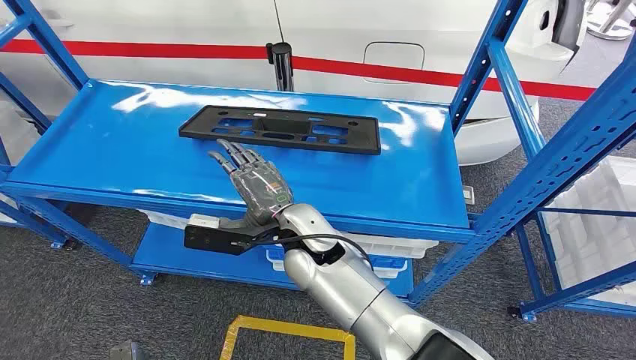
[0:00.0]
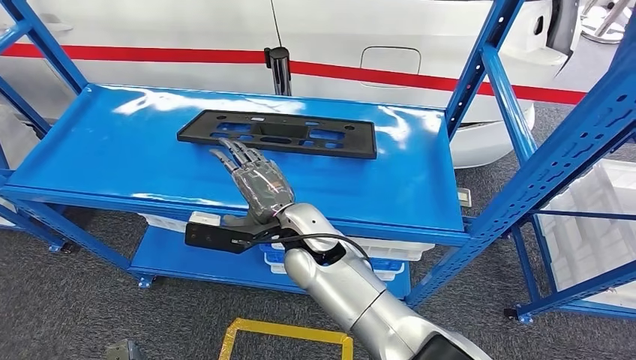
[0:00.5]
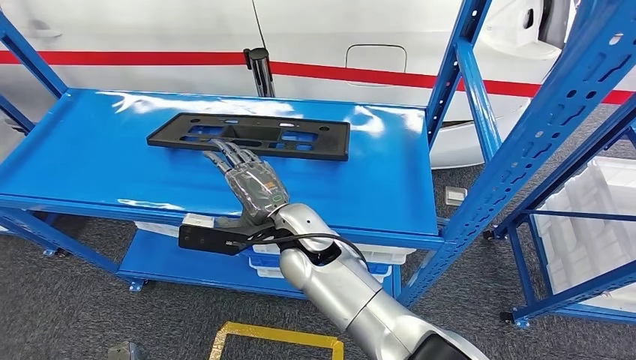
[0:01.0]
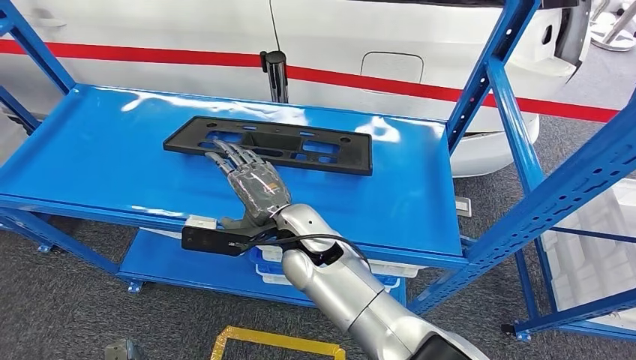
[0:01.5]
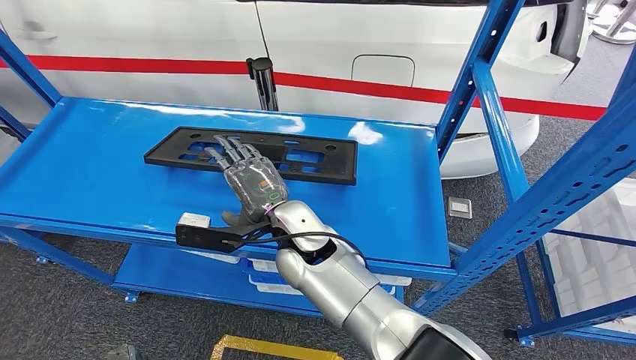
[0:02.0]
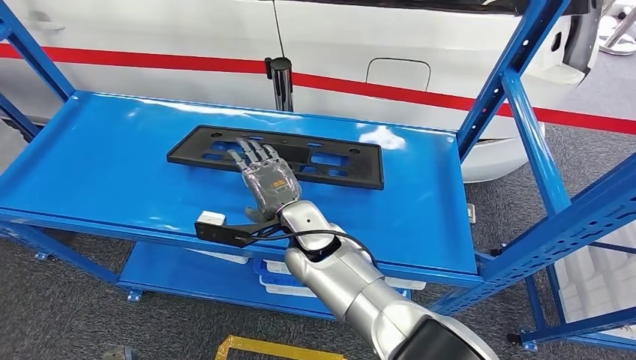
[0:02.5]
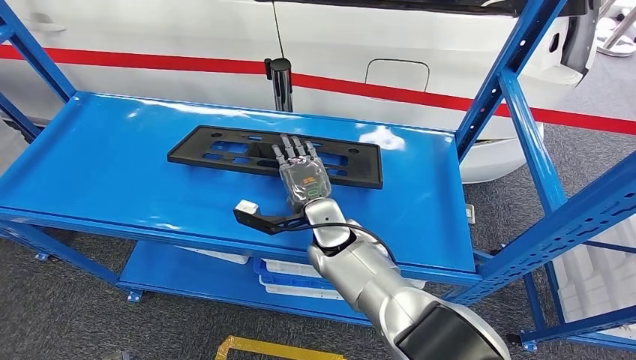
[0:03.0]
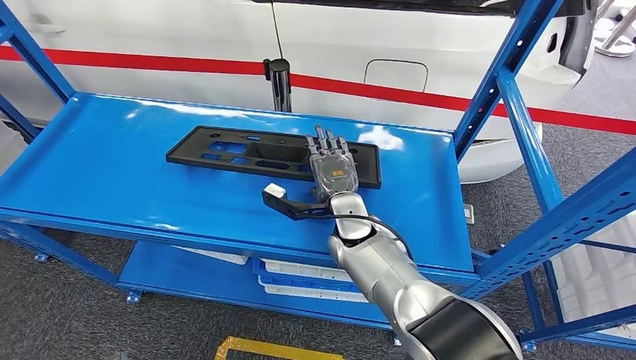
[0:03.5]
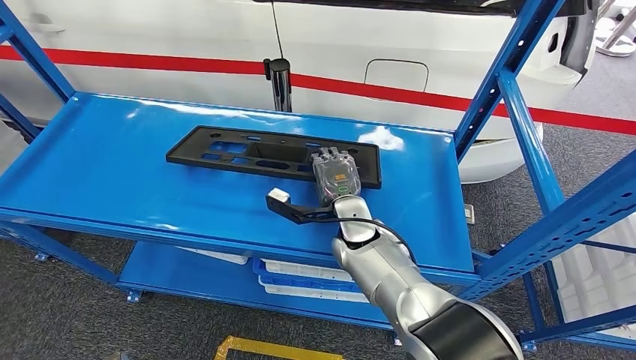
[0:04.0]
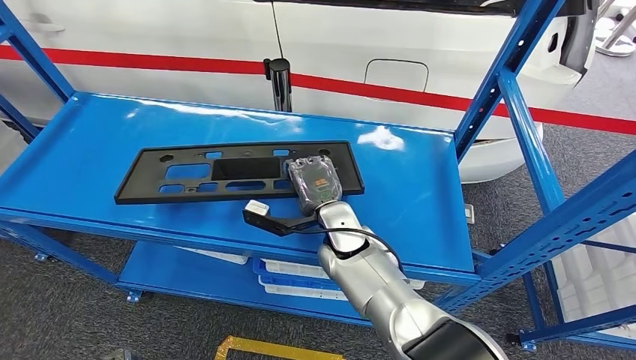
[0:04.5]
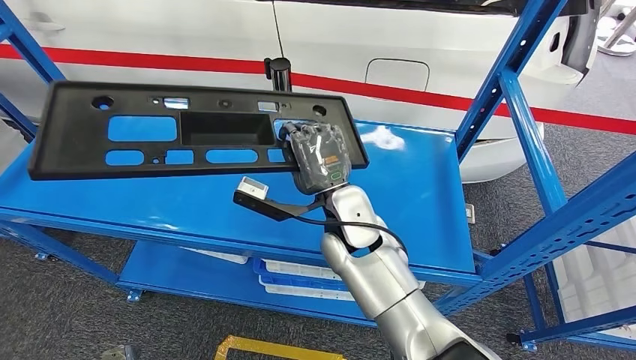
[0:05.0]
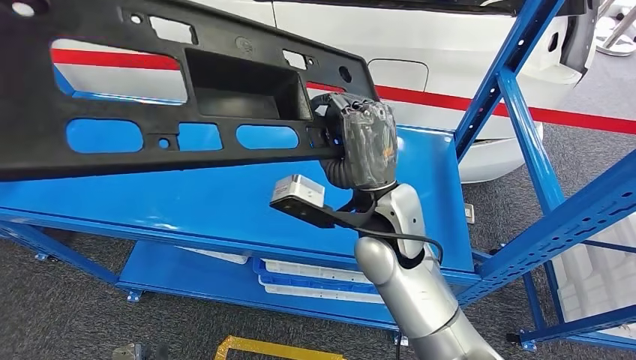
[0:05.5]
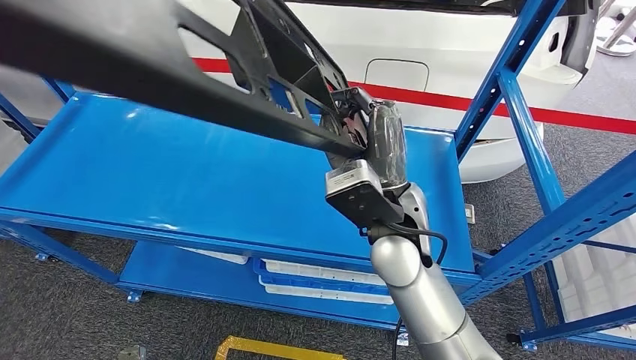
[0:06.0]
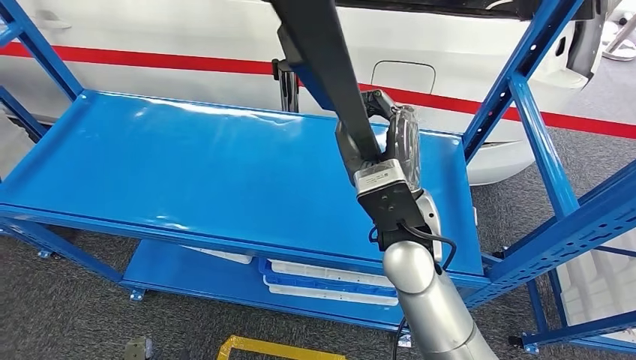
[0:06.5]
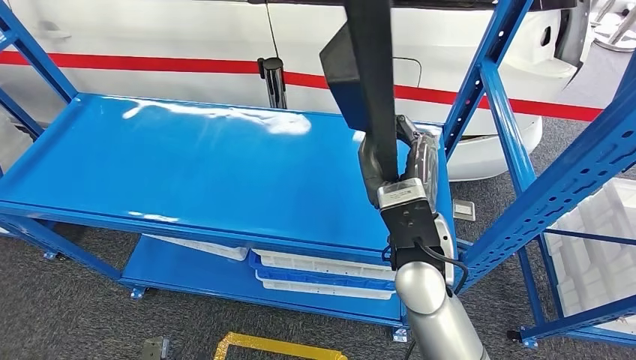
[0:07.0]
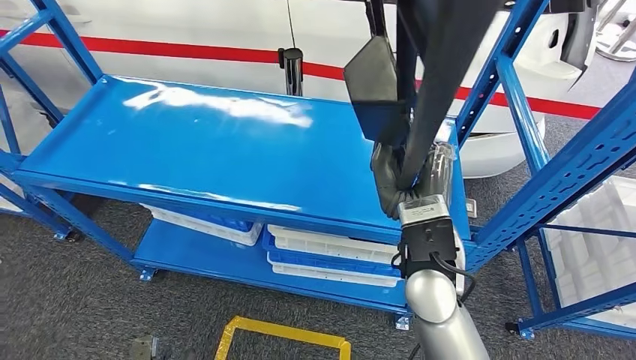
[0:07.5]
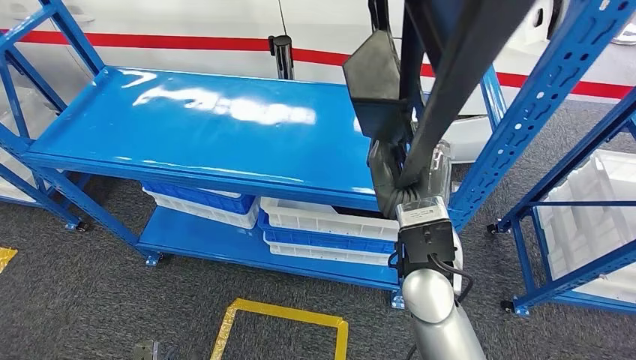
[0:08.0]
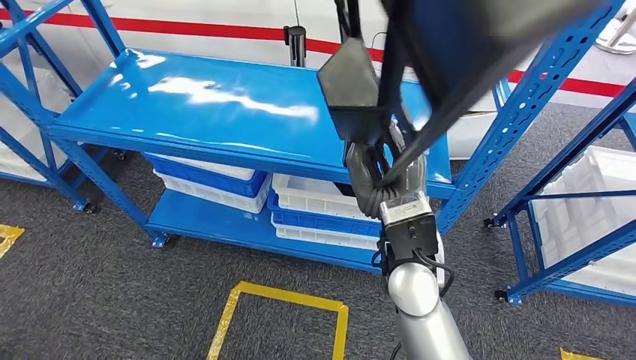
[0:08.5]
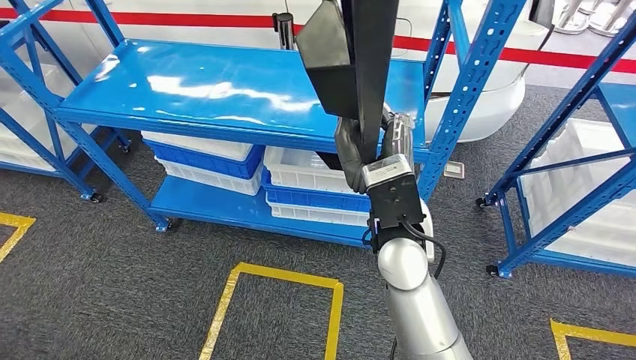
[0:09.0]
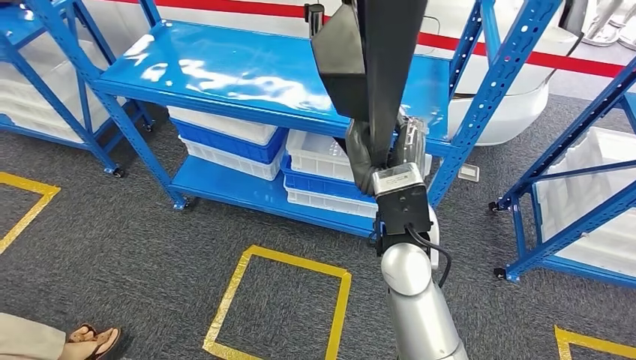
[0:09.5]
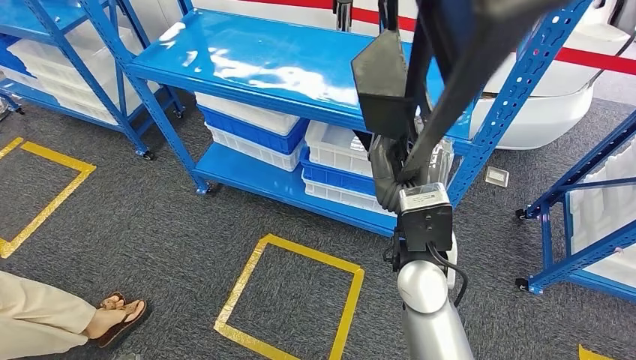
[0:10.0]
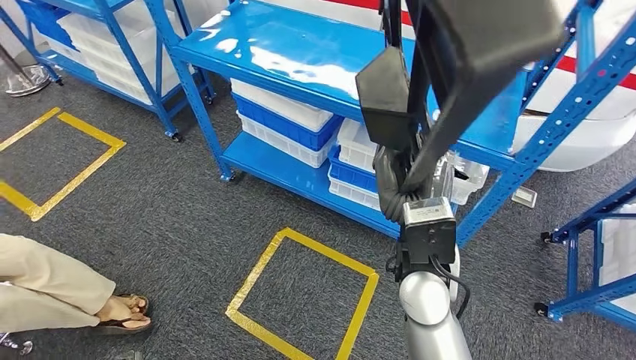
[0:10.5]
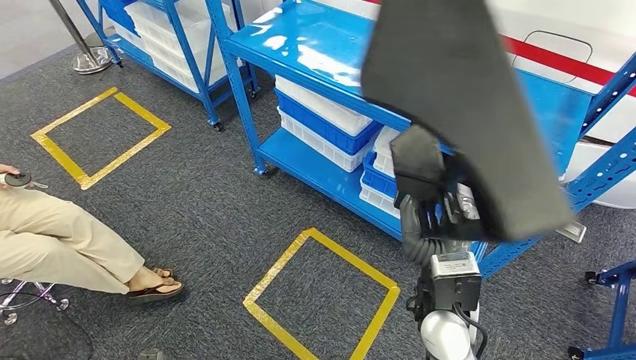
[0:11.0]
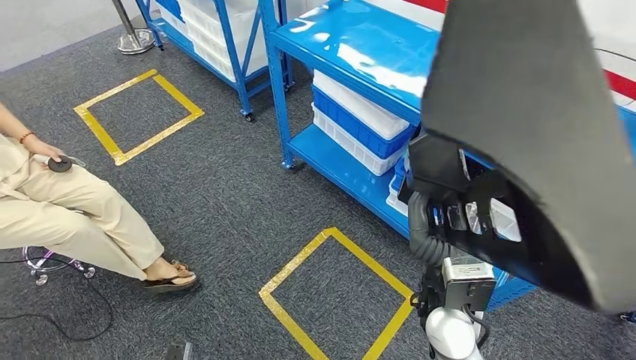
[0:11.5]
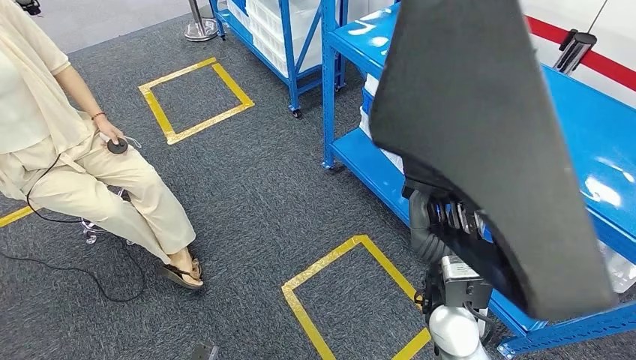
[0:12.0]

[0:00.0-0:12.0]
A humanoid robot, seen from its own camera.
Step, 0:00.0 to 0:10.0: Pick up the large material from the shelf.

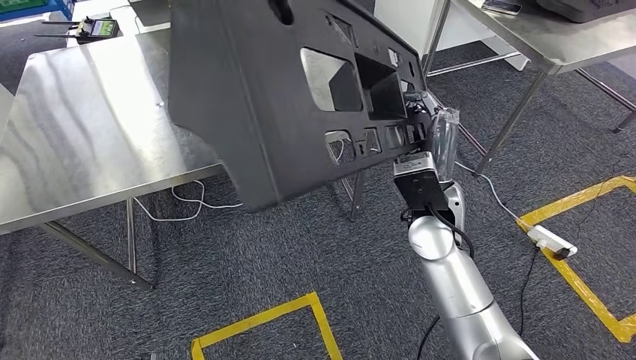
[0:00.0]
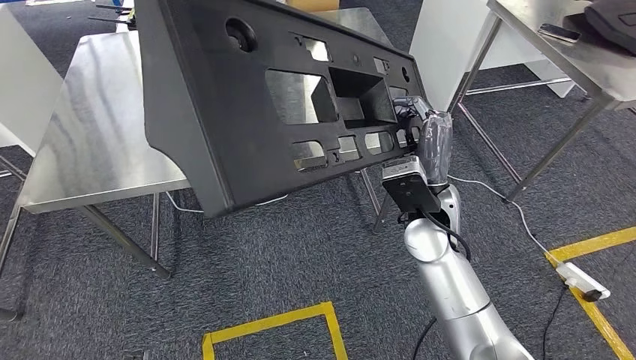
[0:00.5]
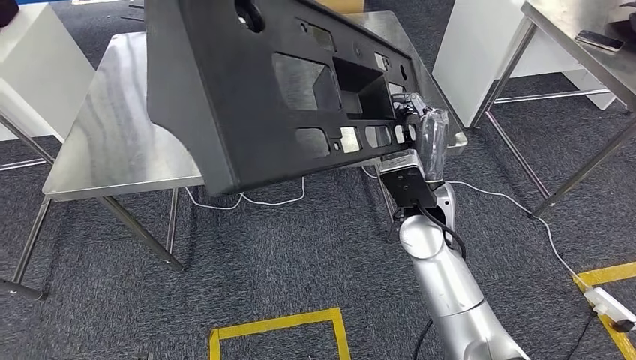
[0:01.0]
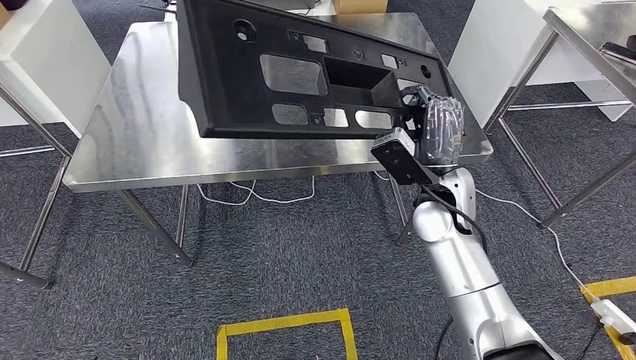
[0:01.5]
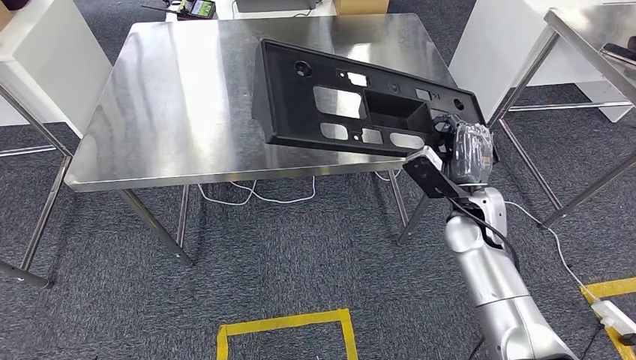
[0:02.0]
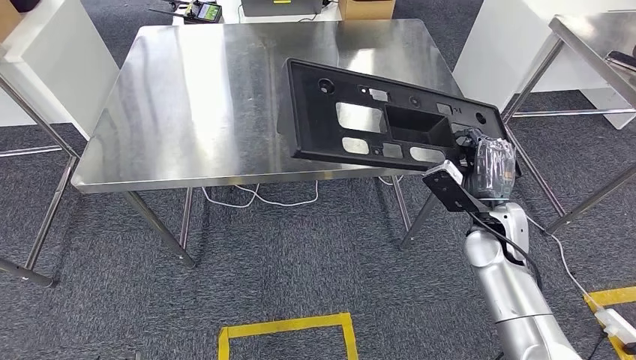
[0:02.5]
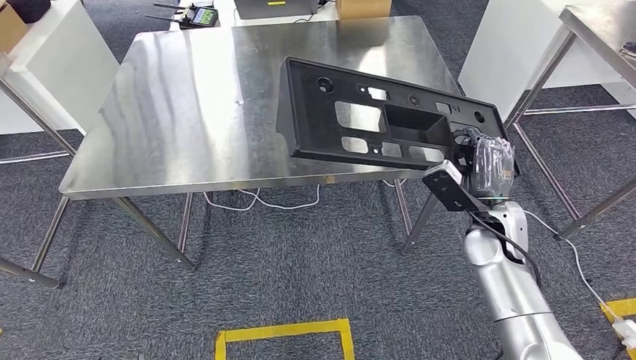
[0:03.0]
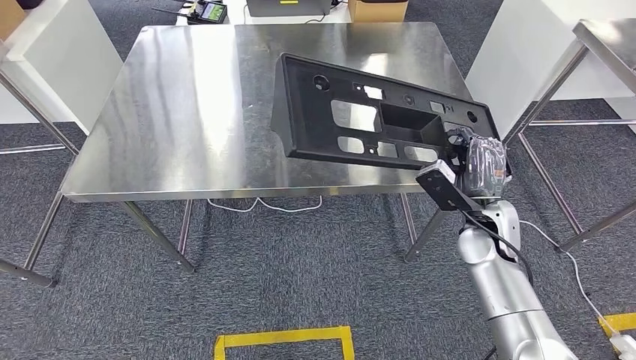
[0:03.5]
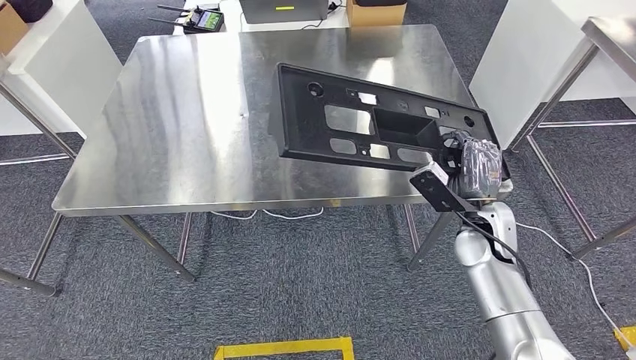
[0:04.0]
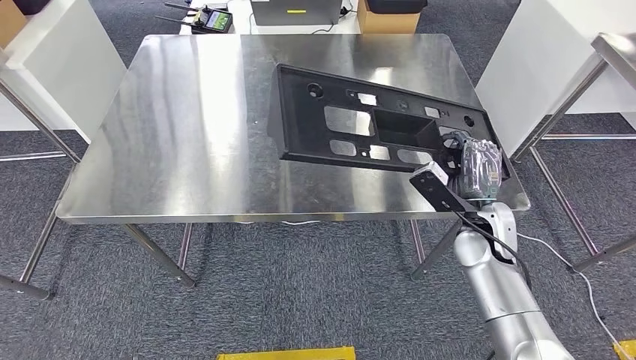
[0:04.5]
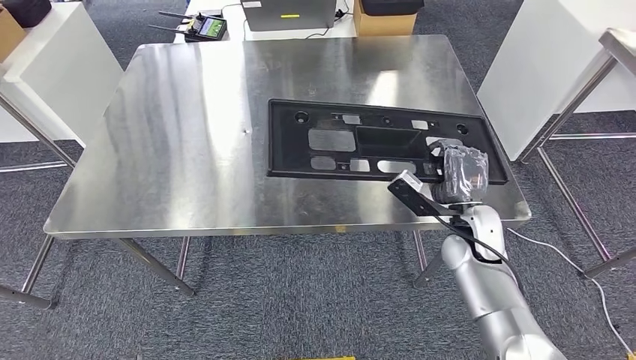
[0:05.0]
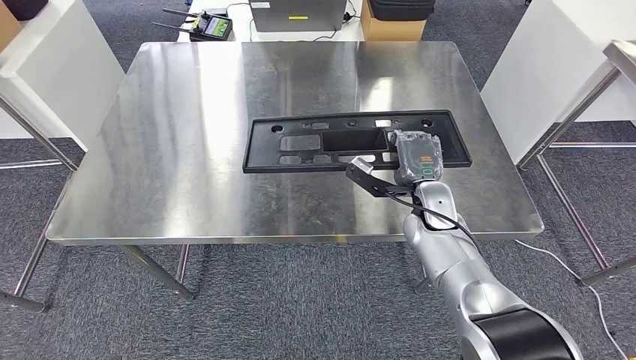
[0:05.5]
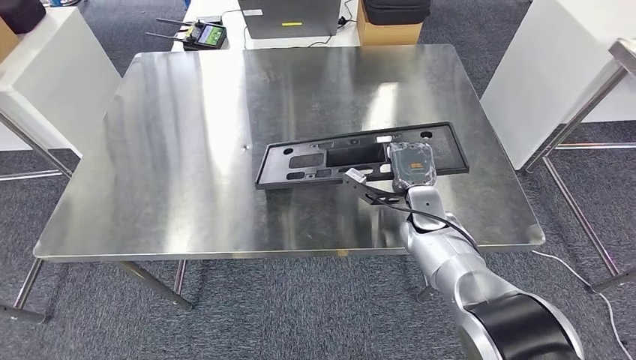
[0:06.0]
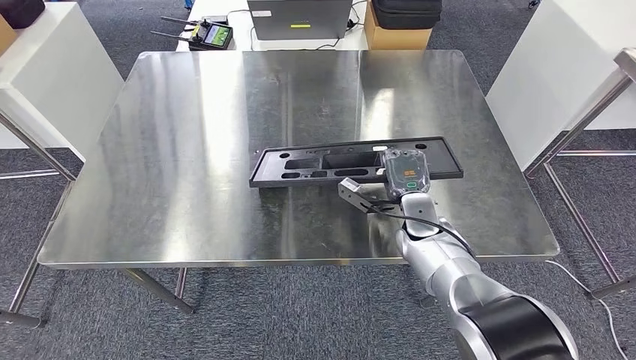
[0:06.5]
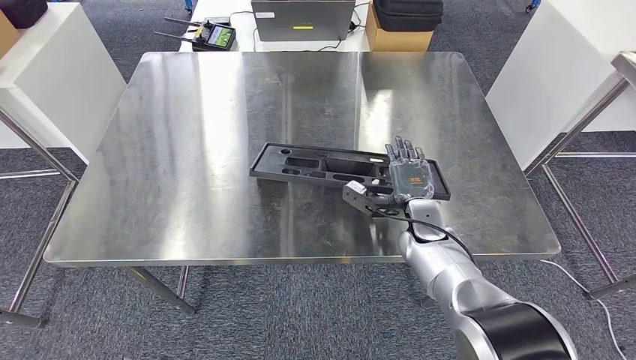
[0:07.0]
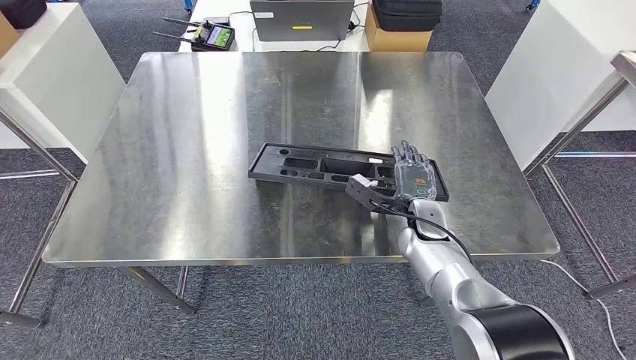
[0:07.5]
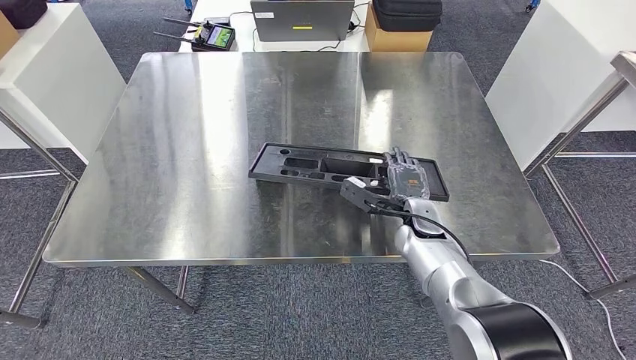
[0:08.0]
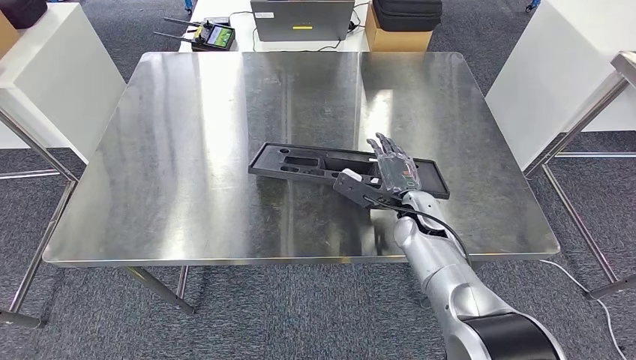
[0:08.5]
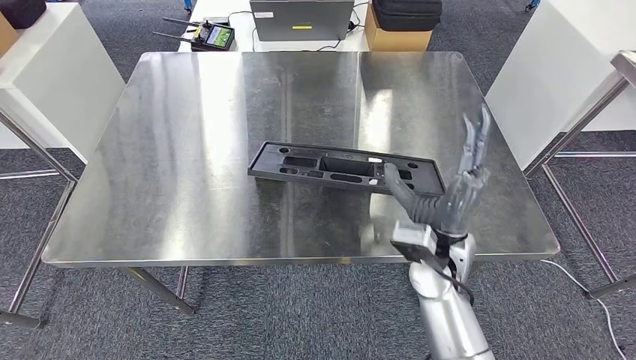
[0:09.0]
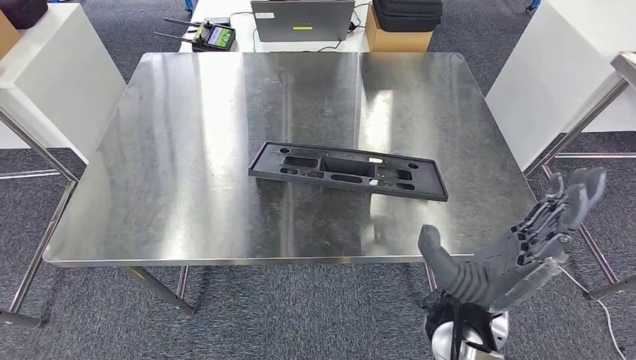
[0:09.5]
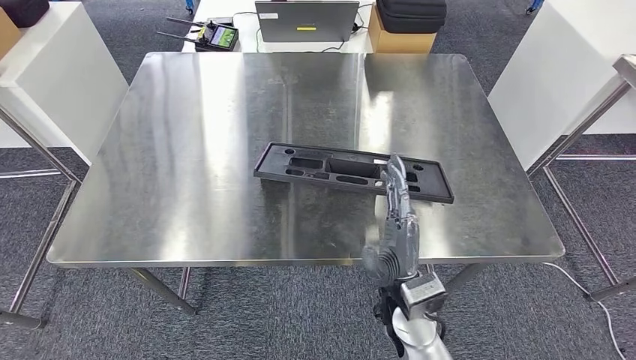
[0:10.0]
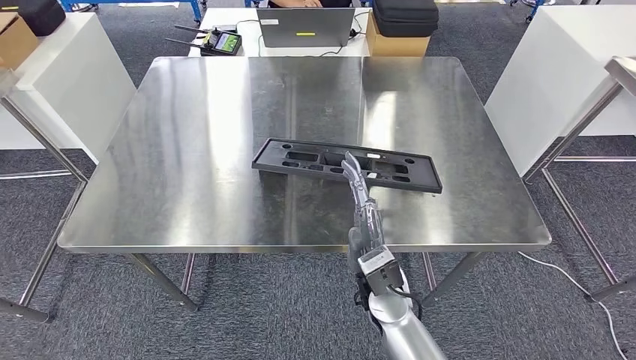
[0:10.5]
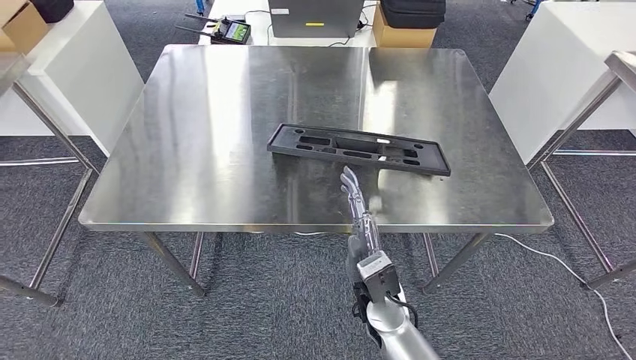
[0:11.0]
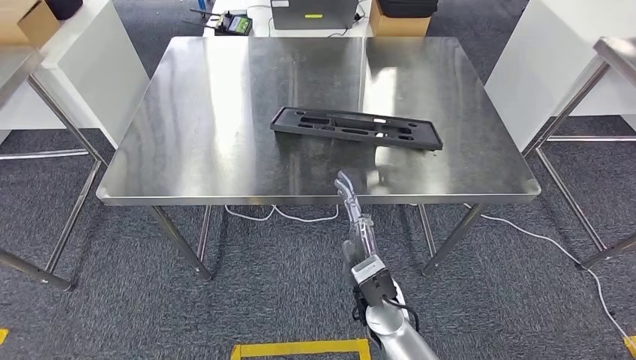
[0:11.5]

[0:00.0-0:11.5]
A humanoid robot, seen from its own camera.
0:07.5 to 0:09.5: The right hand goes roughly 20 cm backward and upward.
